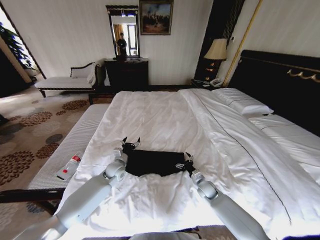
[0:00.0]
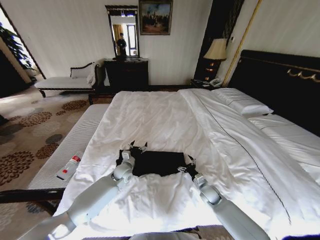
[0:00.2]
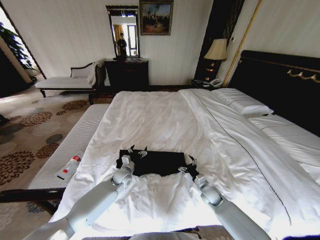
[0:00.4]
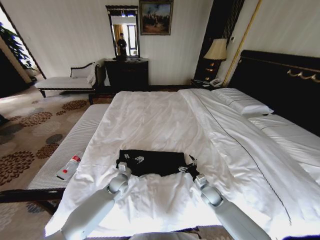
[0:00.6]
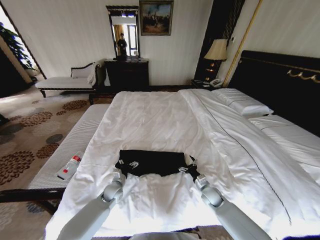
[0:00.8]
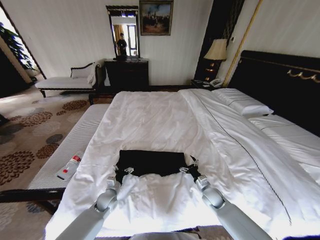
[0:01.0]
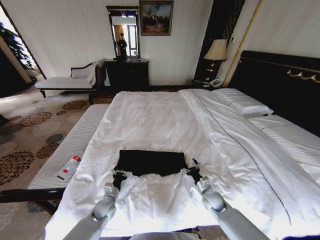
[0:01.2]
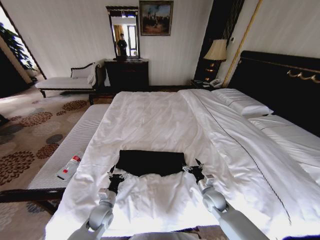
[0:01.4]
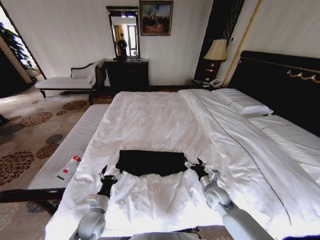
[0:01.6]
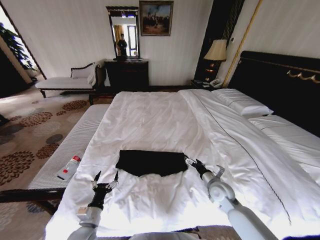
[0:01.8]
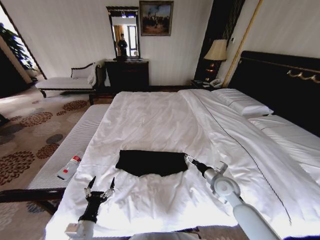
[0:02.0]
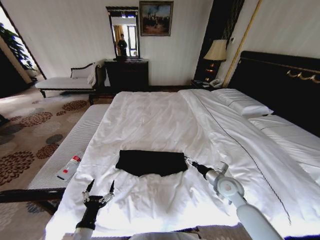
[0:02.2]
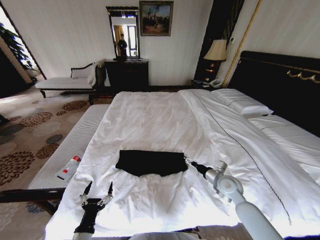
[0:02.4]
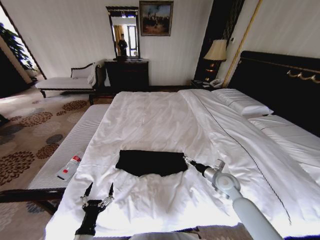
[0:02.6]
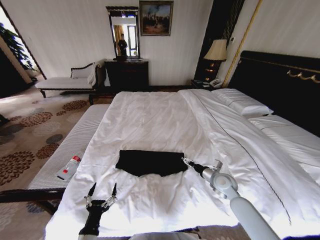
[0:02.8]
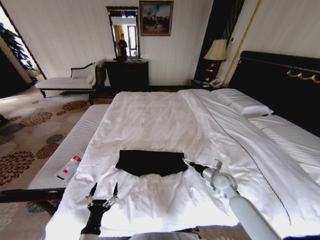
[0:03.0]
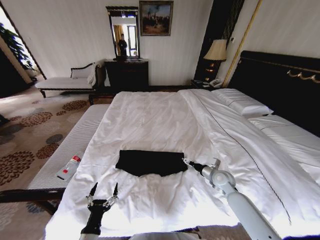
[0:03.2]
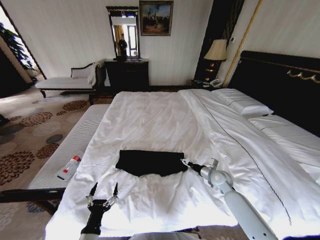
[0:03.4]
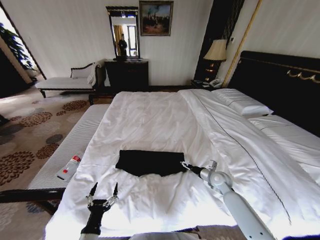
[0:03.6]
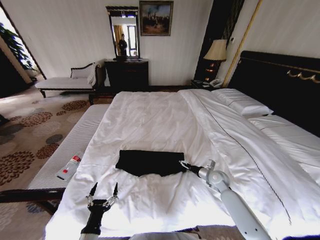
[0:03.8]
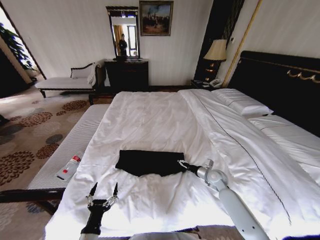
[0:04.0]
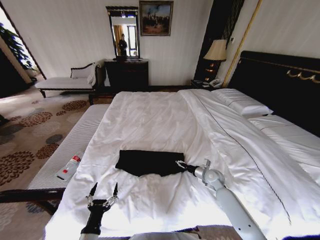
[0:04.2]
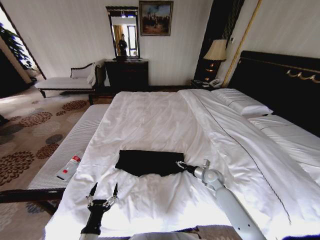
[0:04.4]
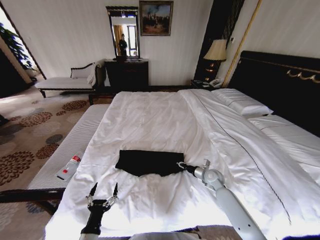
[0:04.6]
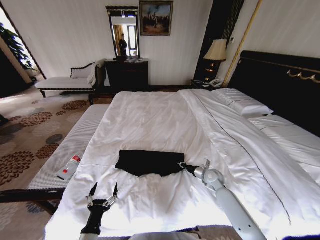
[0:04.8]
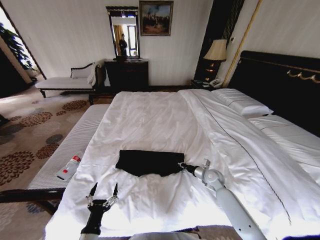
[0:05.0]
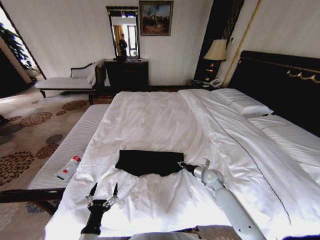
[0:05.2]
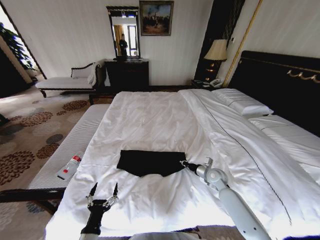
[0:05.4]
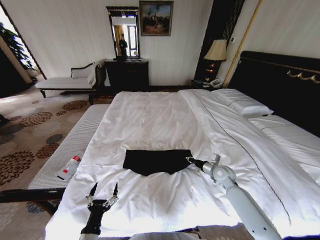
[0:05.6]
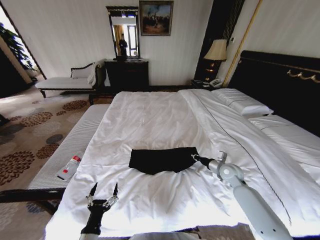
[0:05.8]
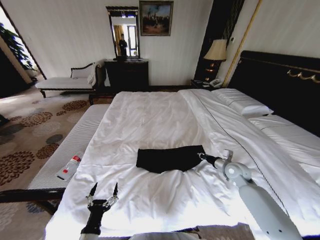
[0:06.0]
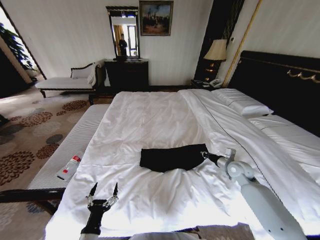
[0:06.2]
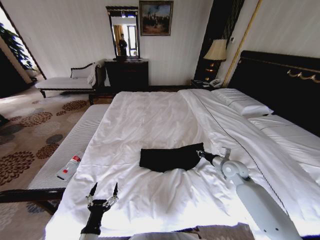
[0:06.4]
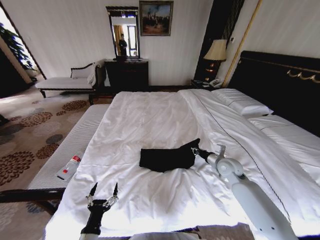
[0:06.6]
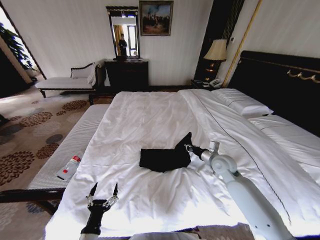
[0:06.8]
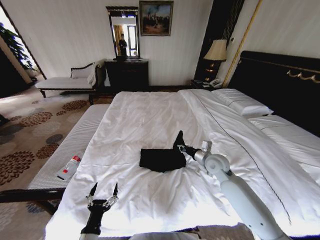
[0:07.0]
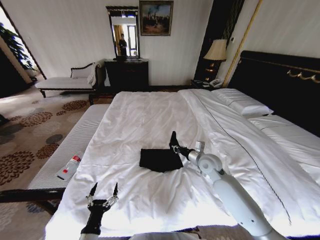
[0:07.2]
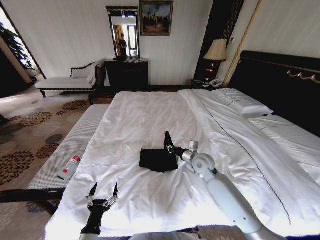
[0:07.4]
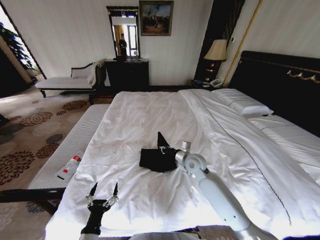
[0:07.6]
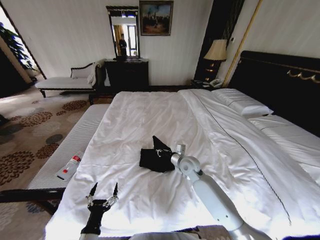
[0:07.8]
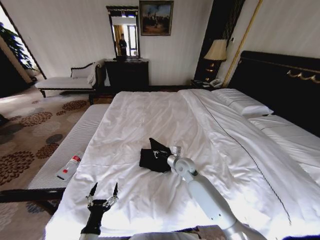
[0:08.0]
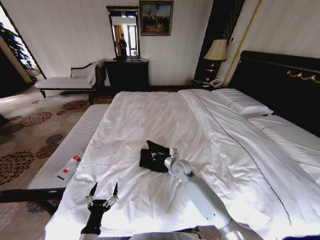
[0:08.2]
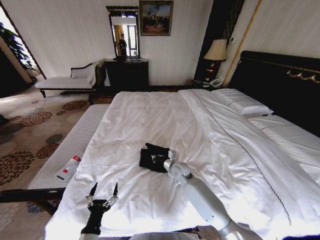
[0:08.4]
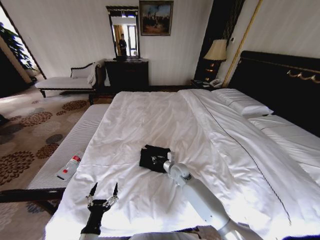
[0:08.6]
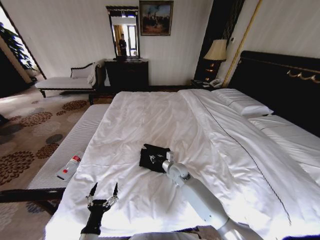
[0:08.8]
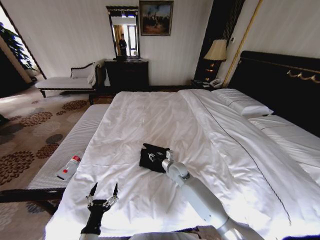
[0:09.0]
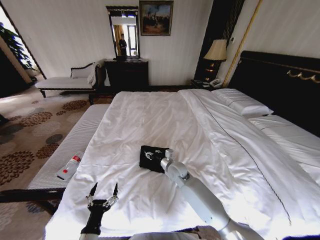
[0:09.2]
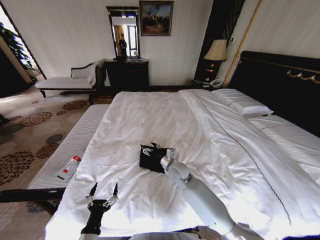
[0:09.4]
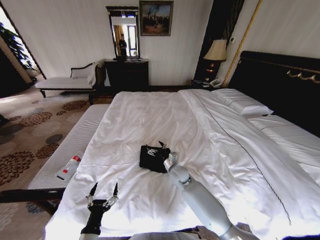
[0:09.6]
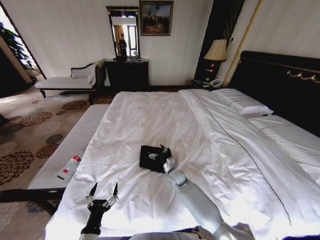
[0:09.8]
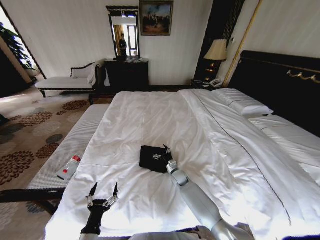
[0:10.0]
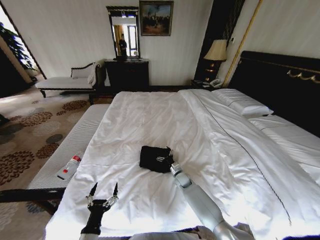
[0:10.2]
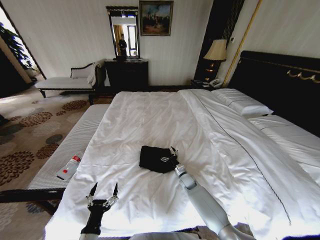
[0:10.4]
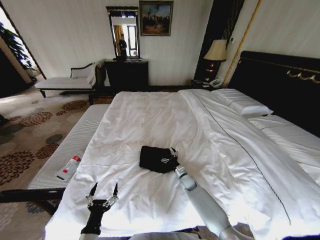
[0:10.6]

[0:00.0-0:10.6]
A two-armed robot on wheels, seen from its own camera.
Task of the whole recording: Fold the clothes on the bed.
0:00.0 to 0:01.6: The left gripper travels backward by approximately 20 cm. Meanwhile the right gripper travels upward and backward by roughly 10 cm.
0:01.6 to 0:03.0: The left gripper goes approximately 15 cm backward, while the right gripper shifts by about 5 cm.
0:03.0 to 0:04.6: The right gripper ends up about 5 cm from where it was, and closes up.
0:04.6 to 0:06.0: The right gripper is displaced upward and to the right by approximately 10 cm.
0:06.0 to 0:07.6: The right gripper shifts some 20 cm to the left.
0:07.6 to 0:09.0: The right gripper shifts roughly 10 cm downward and to the left.
0:09.0 to 0:10.6: The right gripper travels downward and to the right by about 15 cm, and opens.

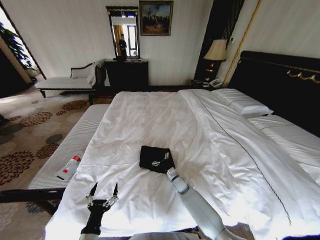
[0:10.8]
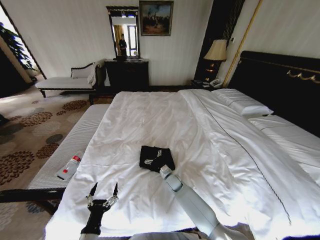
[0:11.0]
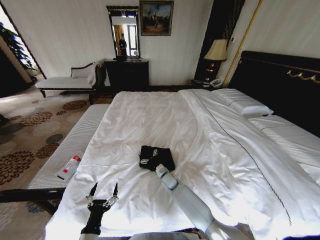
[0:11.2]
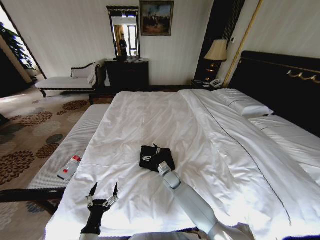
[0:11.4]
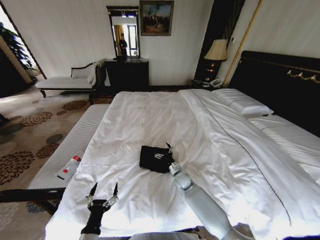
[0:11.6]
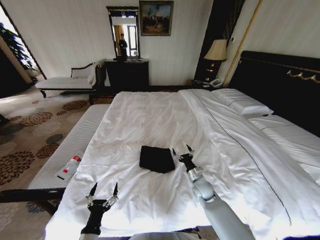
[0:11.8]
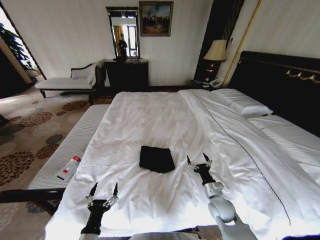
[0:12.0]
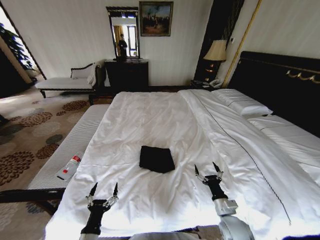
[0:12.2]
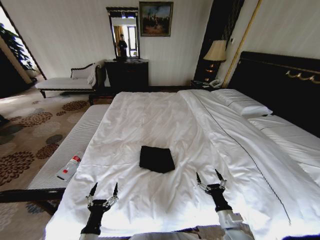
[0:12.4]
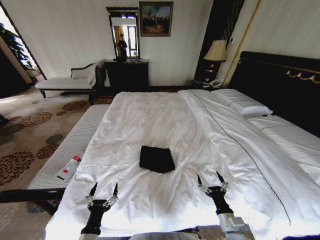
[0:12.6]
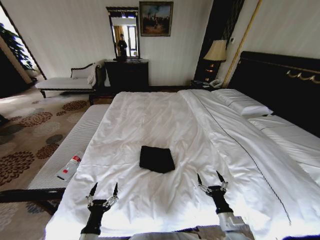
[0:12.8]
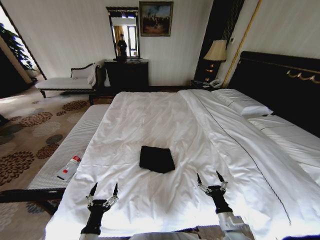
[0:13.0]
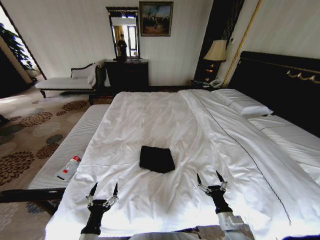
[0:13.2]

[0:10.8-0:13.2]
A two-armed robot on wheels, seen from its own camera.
Task of the whole recording: Fold the clothes on the bed.
0:10.8 to 0:12.0: The right gripper is displaced to the right, backward and upward by approximately 20 cm.
0:12.0 to 0:13.2: The right gripper shifts approximately 10 cm backward.

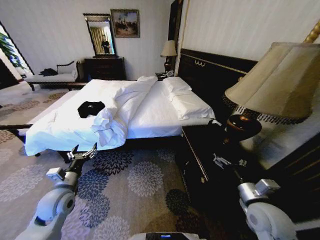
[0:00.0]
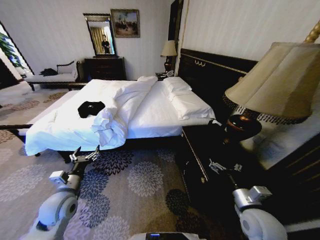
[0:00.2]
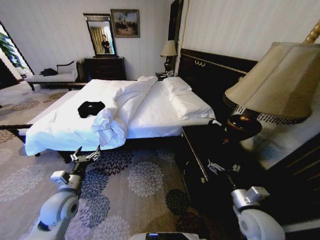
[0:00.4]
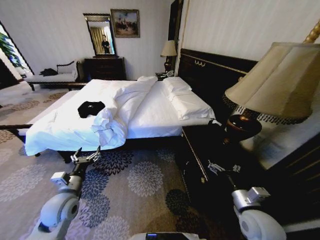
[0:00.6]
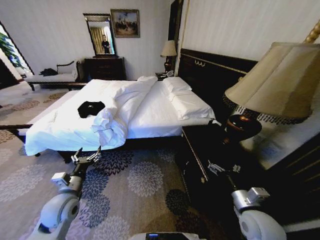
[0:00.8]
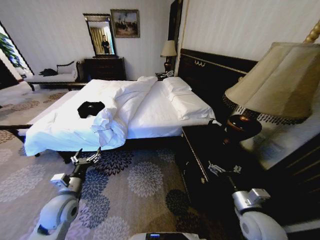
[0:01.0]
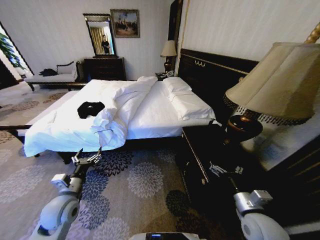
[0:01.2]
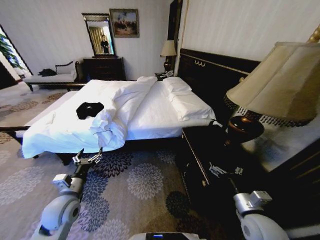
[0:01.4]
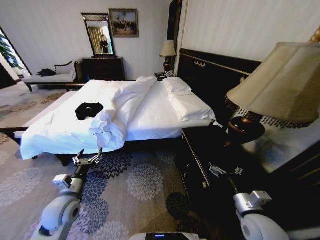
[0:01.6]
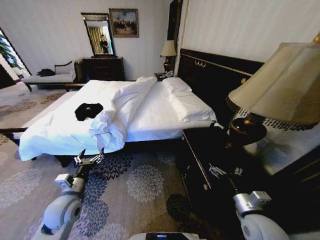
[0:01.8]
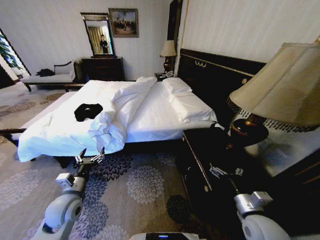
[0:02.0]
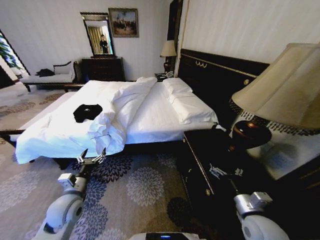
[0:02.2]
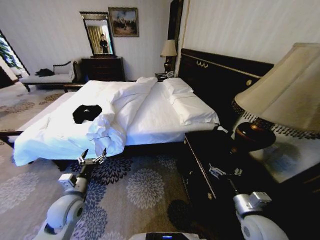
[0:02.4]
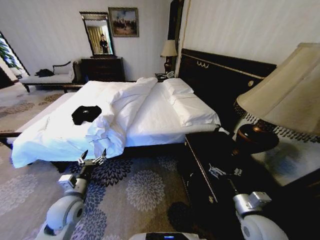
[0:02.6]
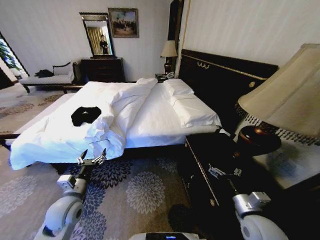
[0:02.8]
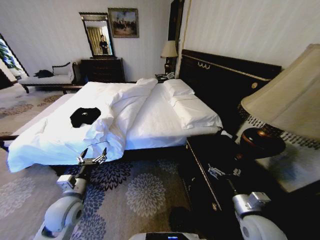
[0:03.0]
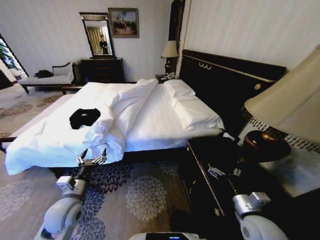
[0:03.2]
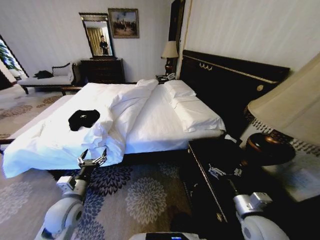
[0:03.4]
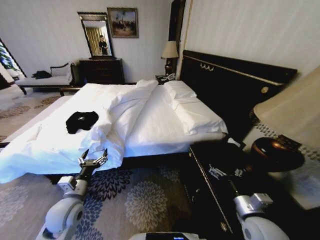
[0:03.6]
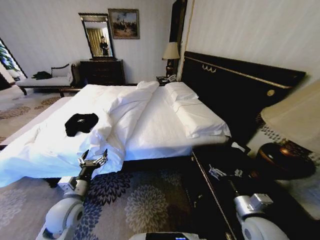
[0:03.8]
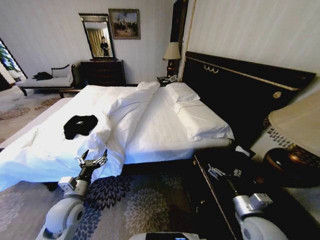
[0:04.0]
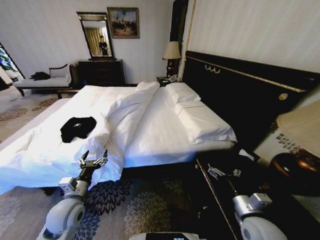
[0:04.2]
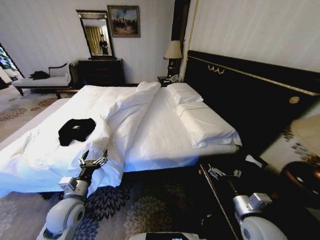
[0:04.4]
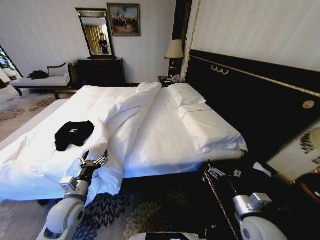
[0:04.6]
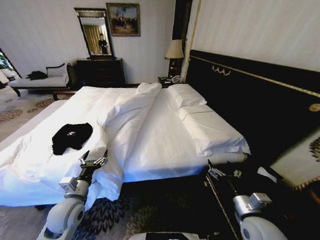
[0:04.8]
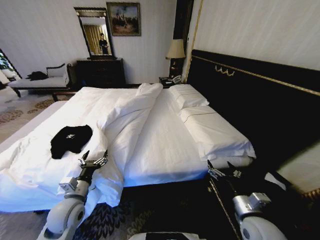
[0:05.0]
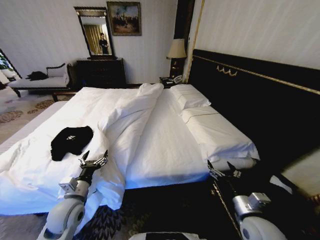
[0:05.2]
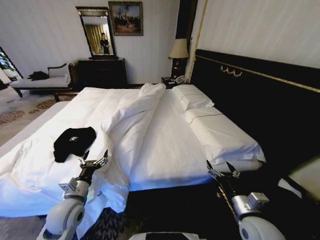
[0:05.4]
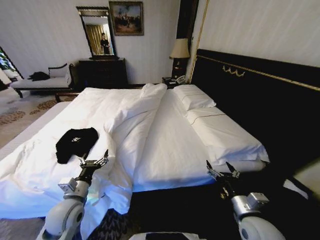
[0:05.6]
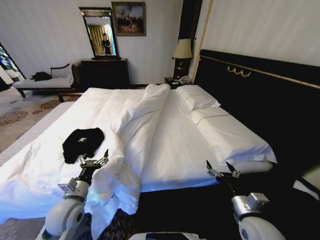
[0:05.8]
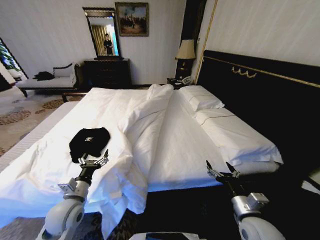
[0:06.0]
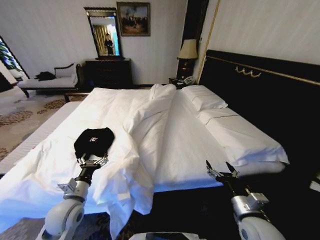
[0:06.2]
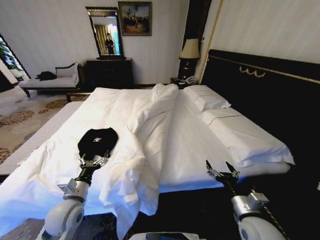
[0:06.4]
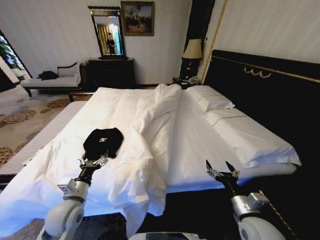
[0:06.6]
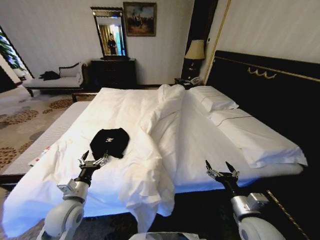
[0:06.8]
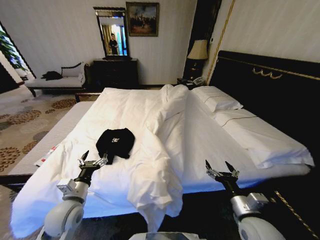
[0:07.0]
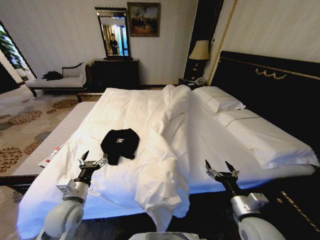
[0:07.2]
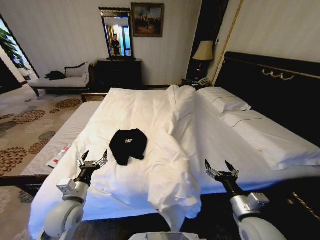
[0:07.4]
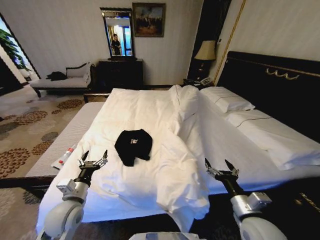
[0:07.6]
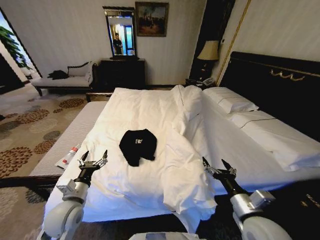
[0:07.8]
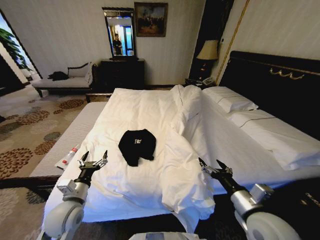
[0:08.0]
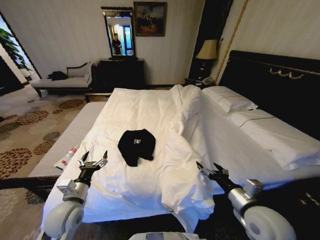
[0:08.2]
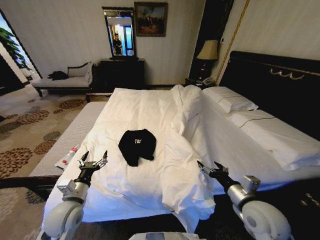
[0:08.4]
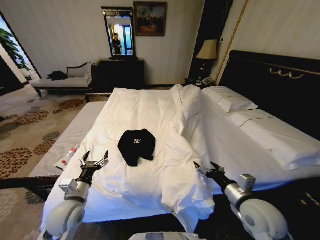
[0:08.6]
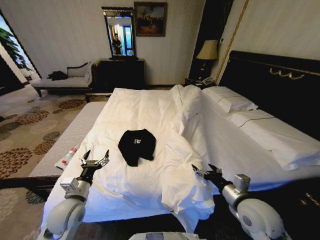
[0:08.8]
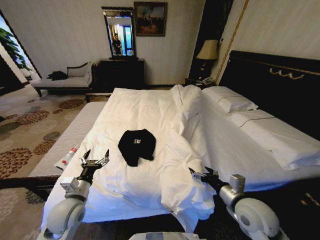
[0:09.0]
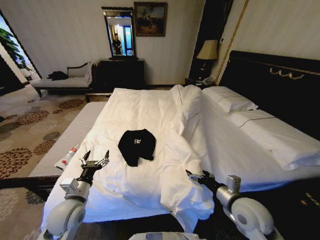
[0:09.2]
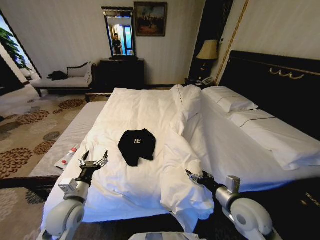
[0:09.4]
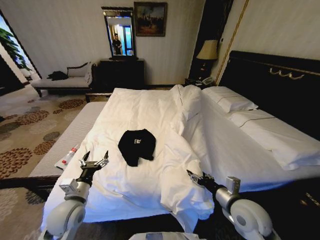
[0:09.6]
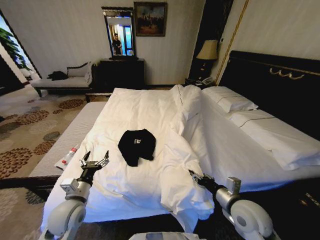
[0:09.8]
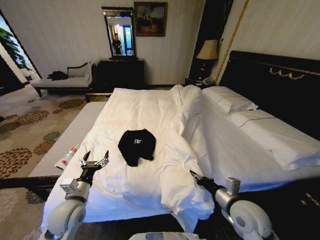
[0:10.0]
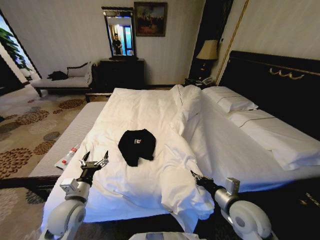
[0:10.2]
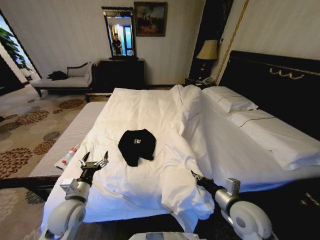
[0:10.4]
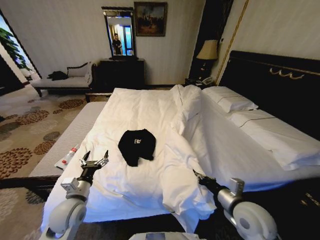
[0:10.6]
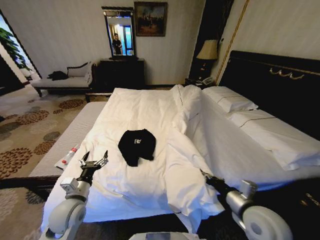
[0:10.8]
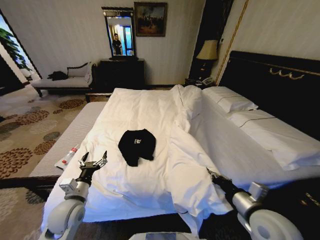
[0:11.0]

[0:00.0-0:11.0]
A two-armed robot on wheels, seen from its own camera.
Task of the whole recording: Fold the clothes on the bed.
0:07.8 to 0:09.4: The right gripper is displaced forward by roughly 5 cm.
0:09.4 to 0:11.0: The right gripper changes place by some 5 cm, and closes.
